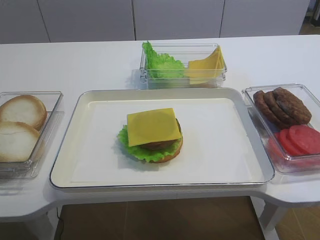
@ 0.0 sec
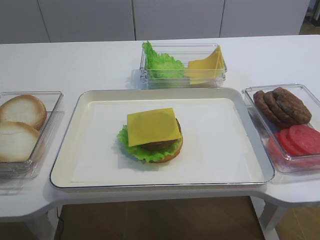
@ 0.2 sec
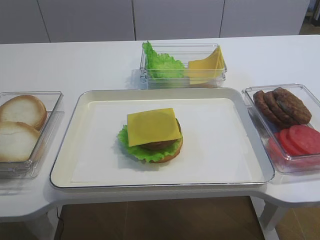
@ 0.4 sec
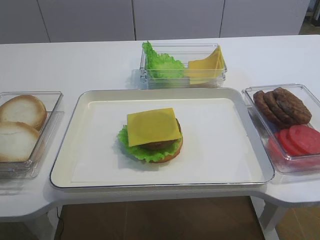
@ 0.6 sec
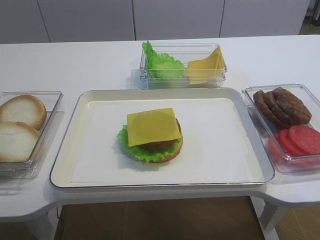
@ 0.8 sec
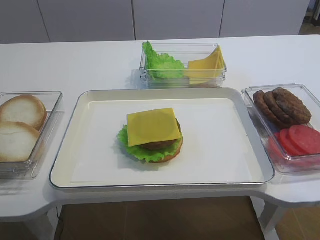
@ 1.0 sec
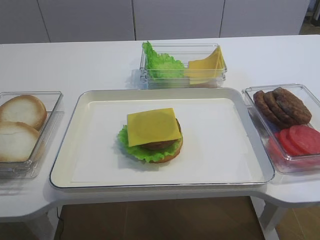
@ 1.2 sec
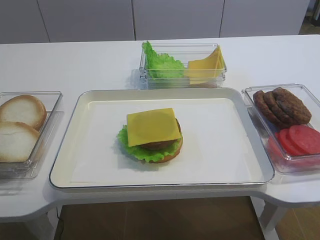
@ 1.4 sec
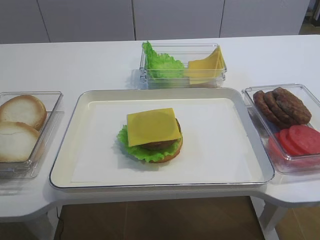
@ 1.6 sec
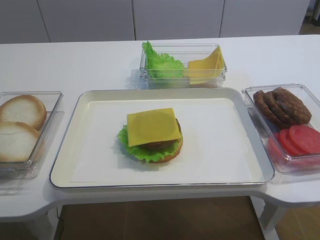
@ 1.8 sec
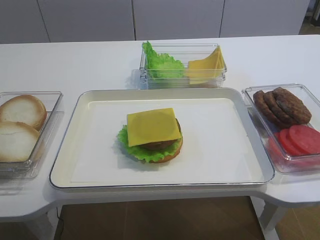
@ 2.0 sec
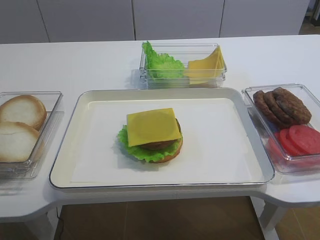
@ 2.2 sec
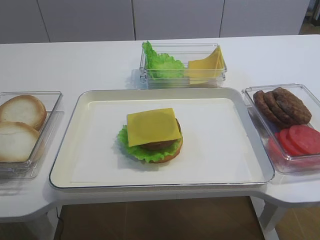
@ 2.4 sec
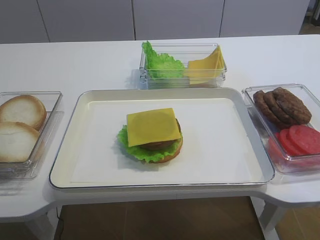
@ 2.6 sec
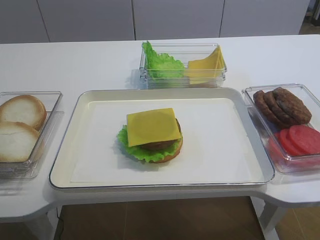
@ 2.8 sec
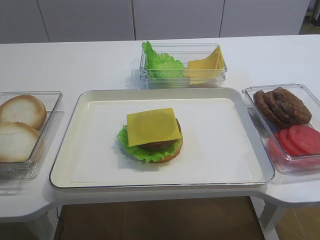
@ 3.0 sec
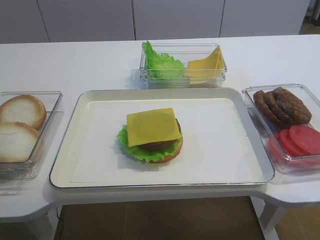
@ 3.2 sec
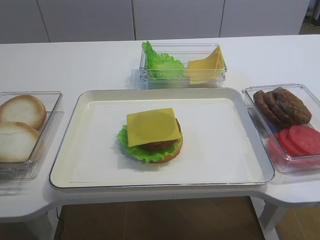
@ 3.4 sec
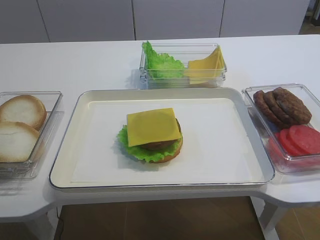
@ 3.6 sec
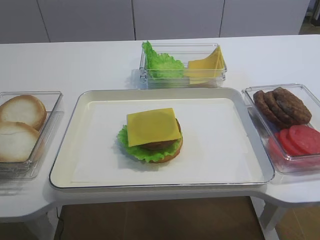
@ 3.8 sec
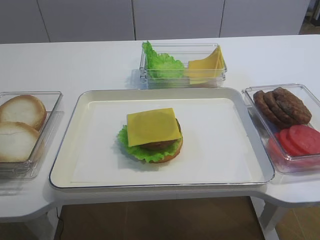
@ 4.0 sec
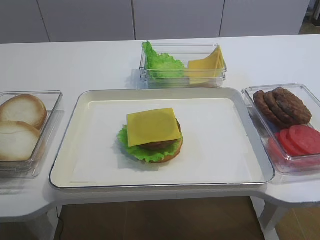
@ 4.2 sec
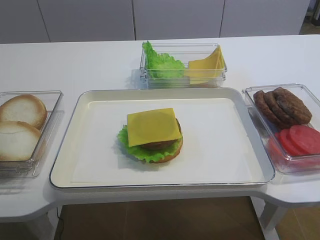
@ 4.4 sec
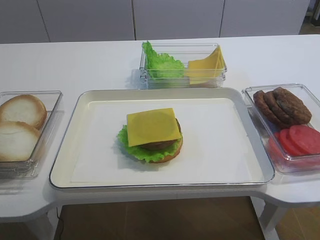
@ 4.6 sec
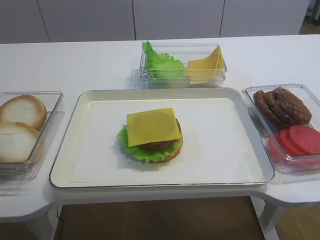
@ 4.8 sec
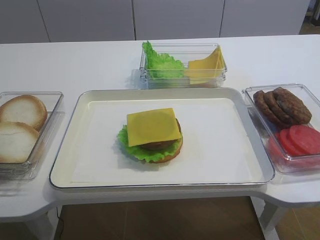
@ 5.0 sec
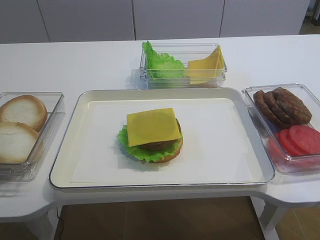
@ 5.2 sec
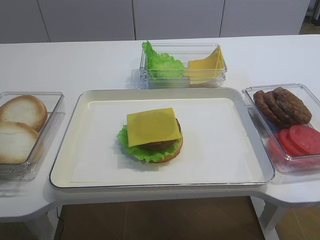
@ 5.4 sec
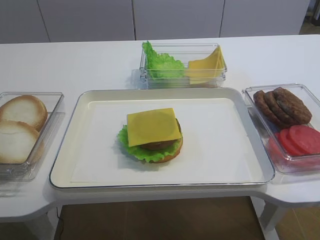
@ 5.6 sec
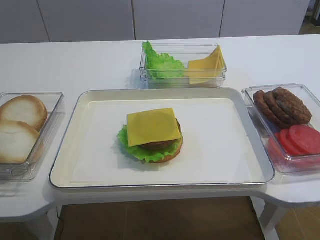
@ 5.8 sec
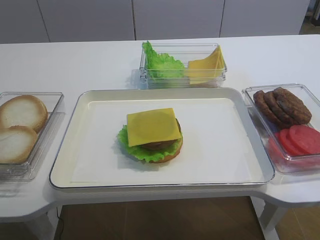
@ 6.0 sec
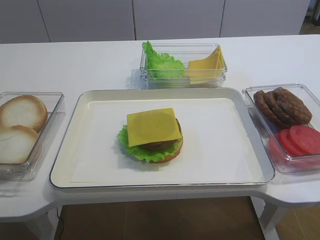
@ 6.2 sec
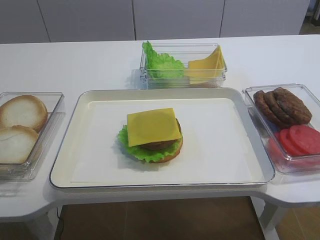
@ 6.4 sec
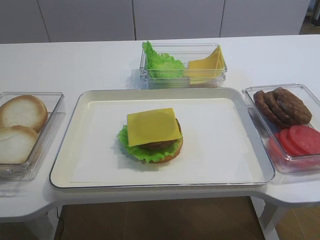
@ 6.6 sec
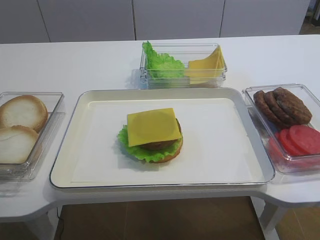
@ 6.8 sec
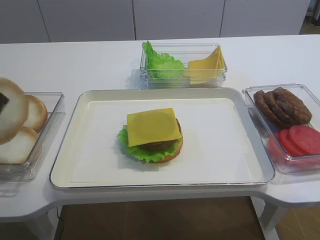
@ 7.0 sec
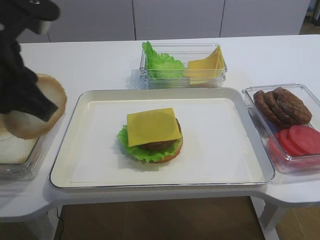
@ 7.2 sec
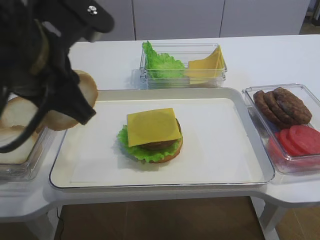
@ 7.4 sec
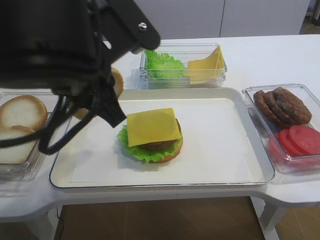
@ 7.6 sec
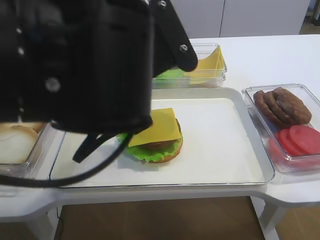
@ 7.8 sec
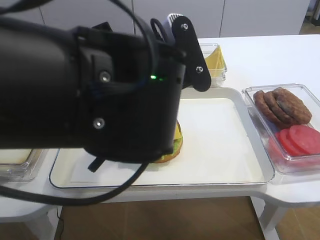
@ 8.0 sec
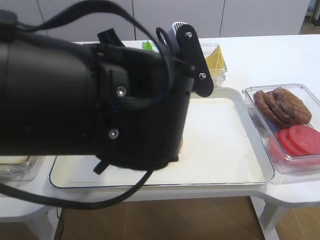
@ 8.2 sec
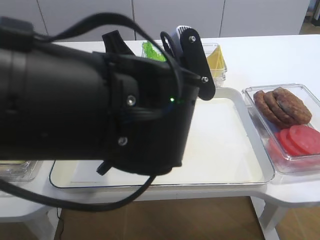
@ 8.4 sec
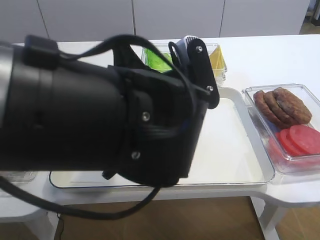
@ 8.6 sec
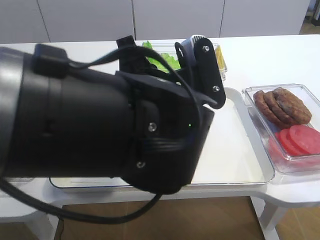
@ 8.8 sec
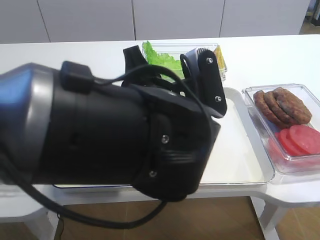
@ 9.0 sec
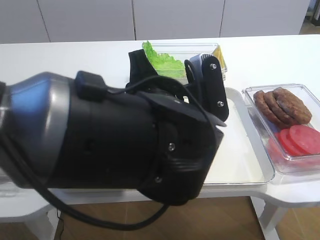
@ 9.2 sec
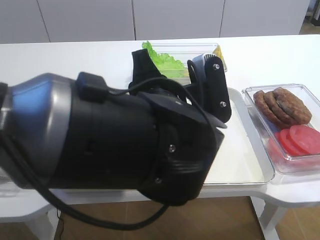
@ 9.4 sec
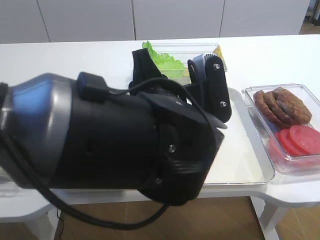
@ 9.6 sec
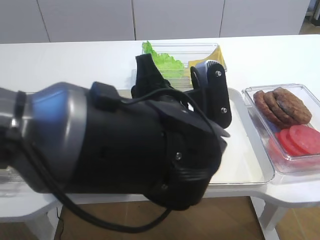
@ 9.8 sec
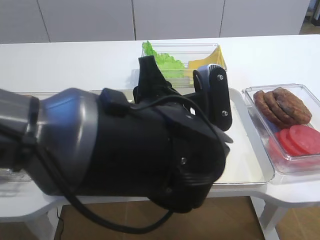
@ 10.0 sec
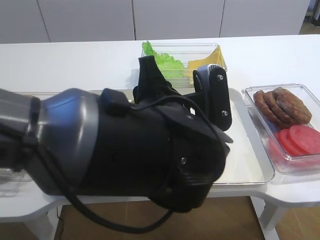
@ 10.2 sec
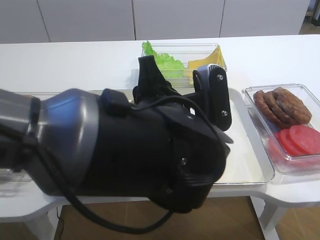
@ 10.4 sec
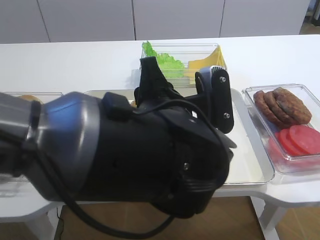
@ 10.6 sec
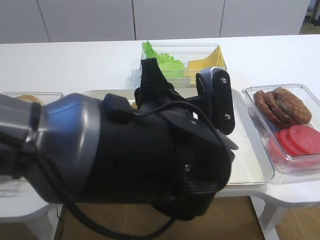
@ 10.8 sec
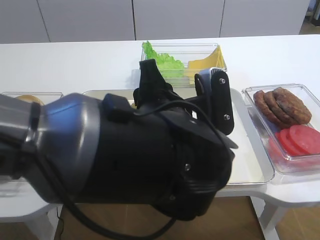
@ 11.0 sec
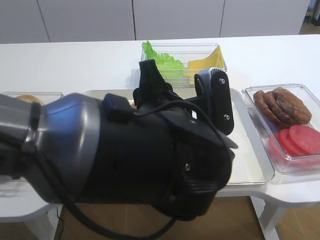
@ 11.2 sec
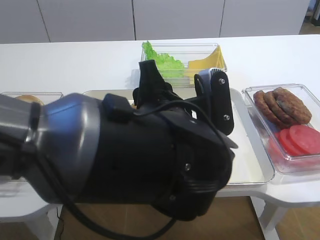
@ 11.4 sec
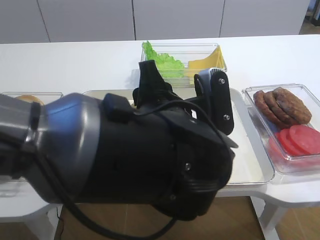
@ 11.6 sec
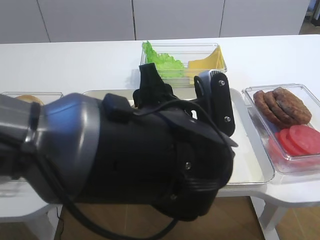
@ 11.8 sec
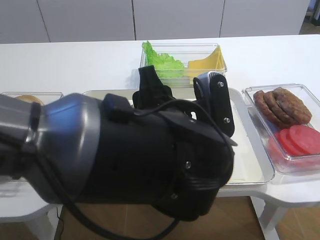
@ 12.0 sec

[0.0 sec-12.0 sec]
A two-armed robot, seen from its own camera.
Step, 0.0 sec to 7.0 sec: Pick up the hamburger lid with the left gripper.
4.4 sec to 6.0 sec: The left gripper changes place by about 5 cm.
6.0 sec to 7.6 sec: The left gripper is displaced to the right by some 25 cm.
7.6 sec to 9.0 sec: The left gripper is displaced to the right and downward by approximately 10 cm.
10.4 sec to 12.0 sec: The two grippers keep their place.

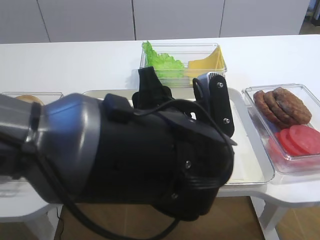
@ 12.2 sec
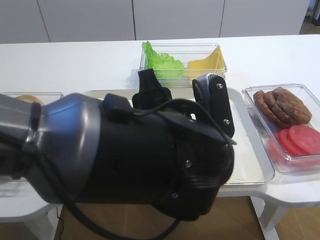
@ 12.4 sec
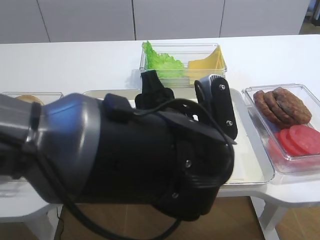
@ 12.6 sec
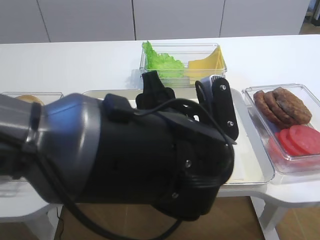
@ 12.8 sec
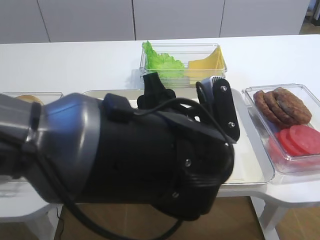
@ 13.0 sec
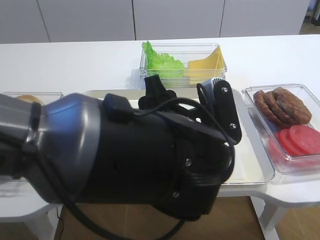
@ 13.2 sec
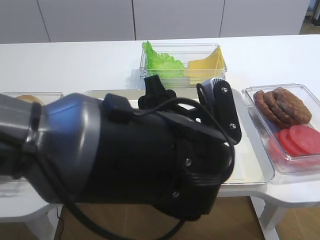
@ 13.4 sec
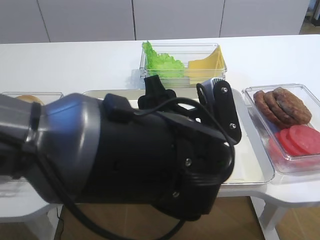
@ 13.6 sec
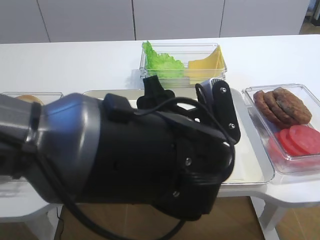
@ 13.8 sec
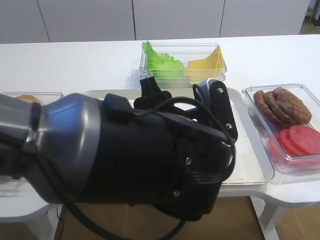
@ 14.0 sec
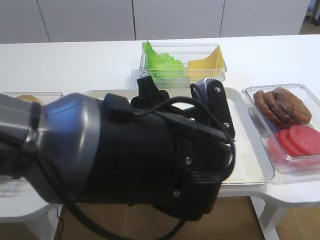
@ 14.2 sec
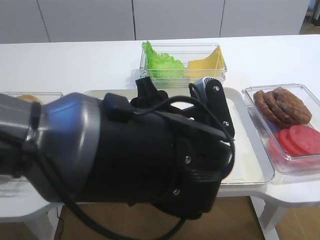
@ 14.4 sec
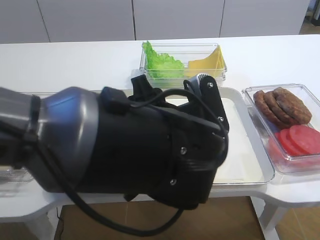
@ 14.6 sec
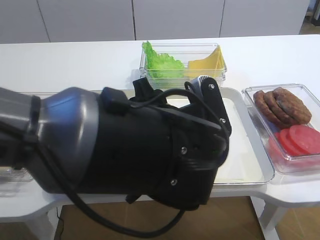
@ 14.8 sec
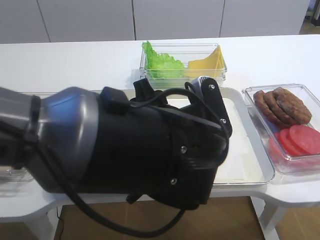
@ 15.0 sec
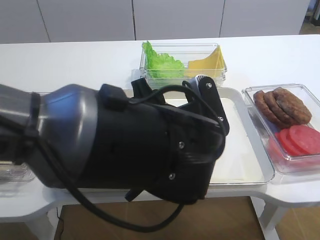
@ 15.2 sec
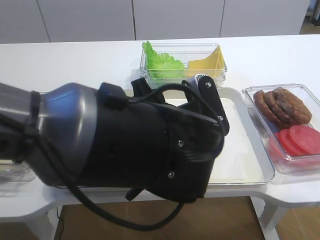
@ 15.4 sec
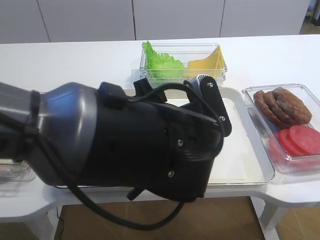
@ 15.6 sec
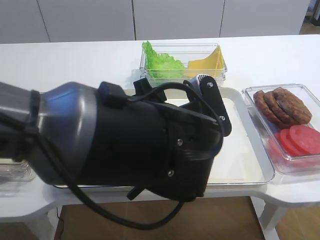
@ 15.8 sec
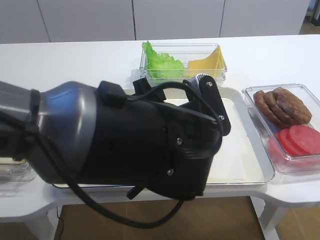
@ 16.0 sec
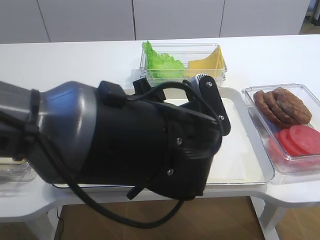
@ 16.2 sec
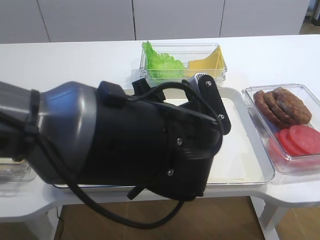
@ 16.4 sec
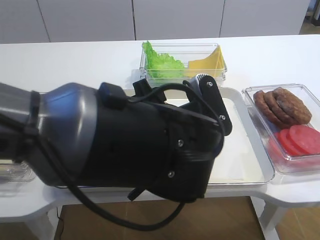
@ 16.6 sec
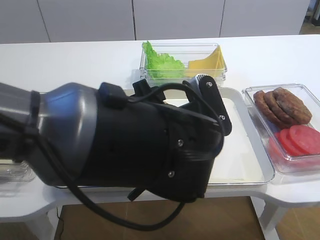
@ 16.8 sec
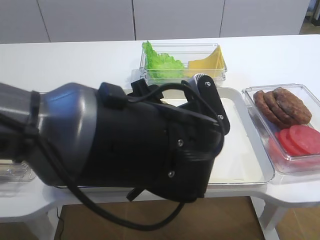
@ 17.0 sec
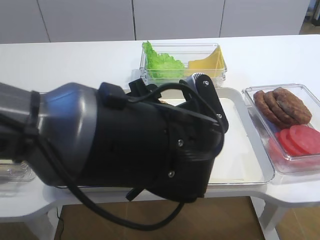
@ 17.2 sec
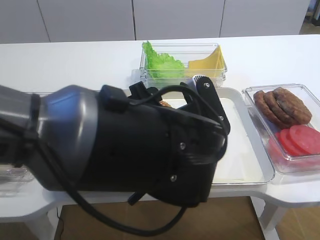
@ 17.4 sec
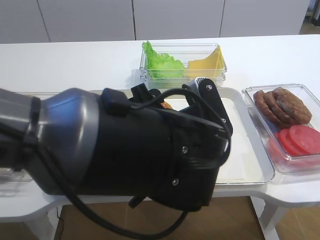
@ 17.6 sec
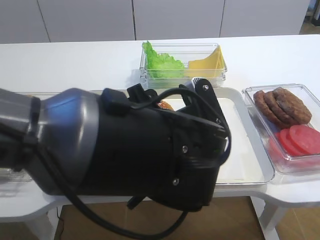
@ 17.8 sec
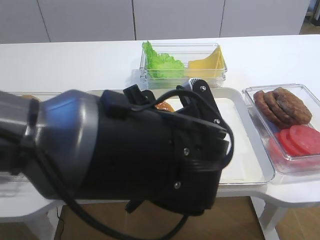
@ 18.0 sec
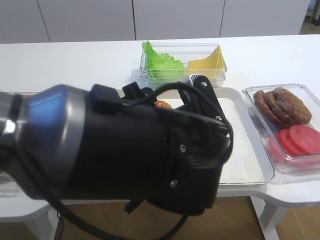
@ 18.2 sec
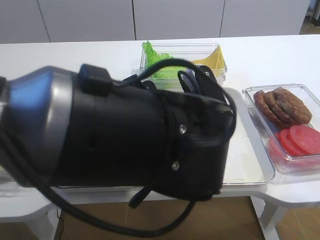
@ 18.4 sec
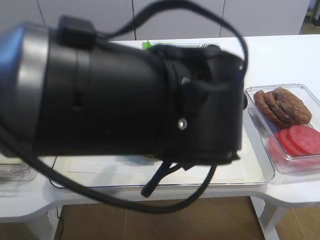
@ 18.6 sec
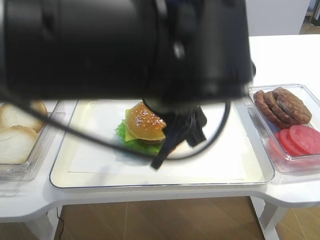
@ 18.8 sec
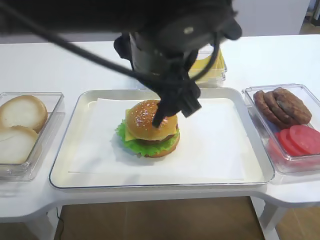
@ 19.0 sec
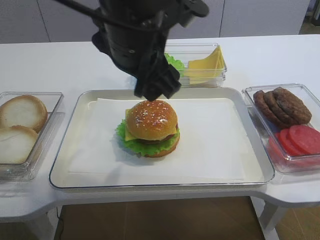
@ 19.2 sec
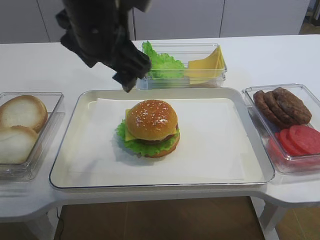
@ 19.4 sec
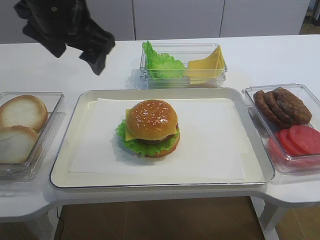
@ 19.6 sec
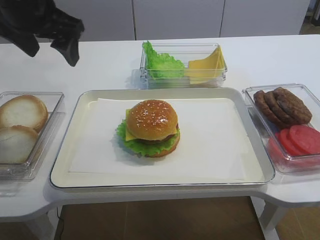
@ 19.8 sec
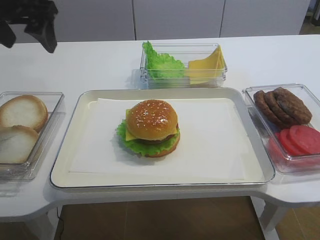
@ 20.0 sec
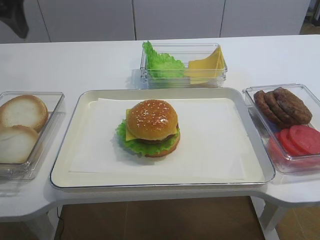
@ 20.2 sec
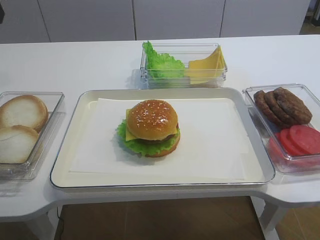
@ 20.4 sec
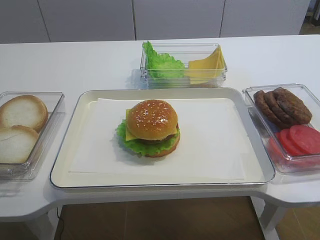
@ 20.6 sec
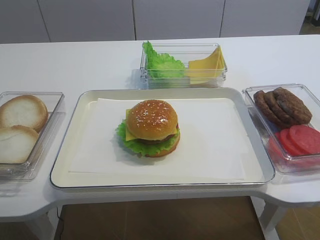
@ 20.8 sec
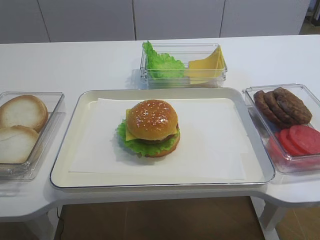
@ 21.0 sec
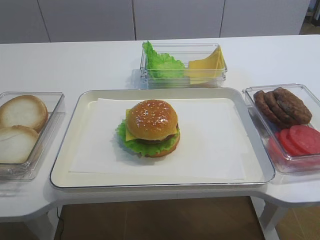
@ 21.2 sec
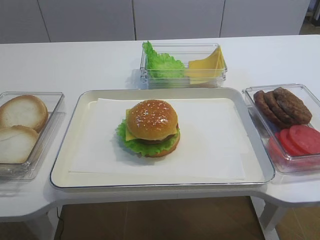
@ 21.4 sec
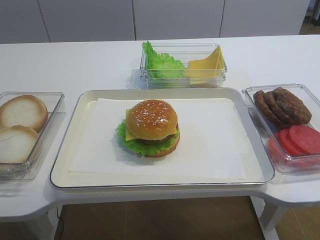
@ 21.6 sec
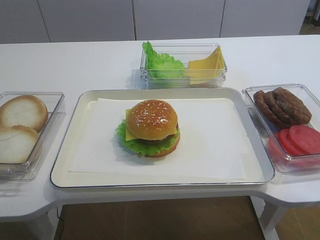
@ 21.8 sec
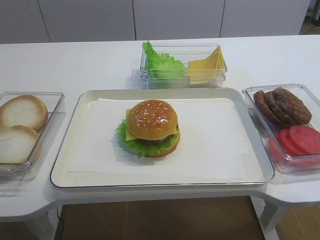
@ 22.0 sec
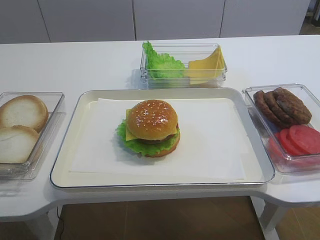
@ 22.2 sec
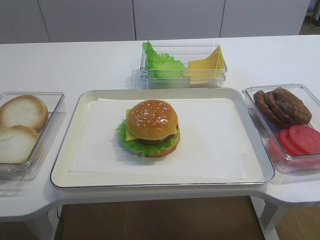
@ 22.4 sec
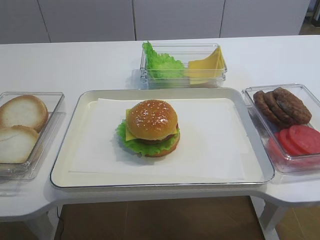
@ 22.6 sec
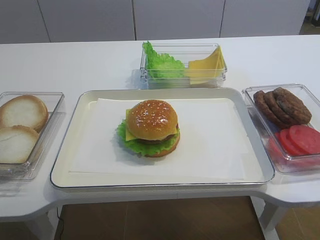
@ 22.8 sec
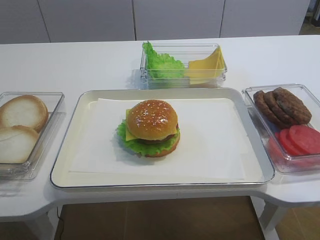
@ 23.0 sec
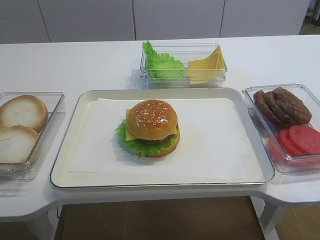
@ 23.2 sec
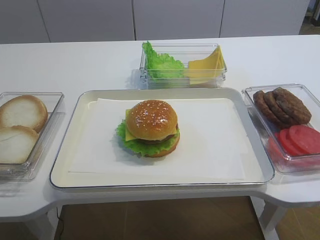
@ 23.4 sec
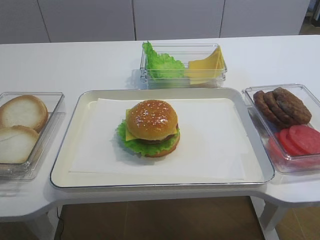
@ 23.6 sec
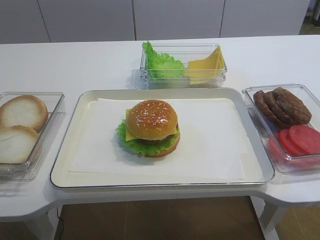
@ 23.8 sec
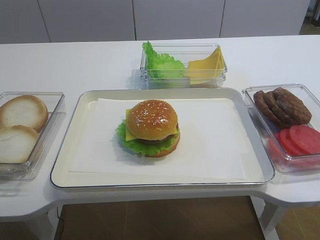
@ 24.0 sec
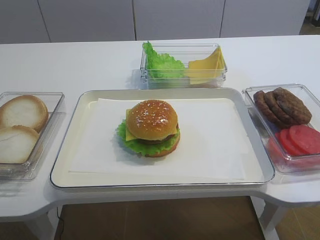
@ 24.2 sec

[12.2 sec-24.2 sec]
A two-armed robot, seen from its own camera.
Step, 12.2 sec to 19.0 sec: Place the hamburger lid on the cheese slice with the left gripper.
12.2 sec to 15.2 sec: The grippers make only small movements.
15.2 sec to 16.6 sec: Both grippers stay put.
16.6 sec to 18.2 sec: There are only small adjustments of the grippers.
18.2 sec to 19.8 sec: The left gripper goes about 25 cm to the left, forward and upward.
19.8 sec to 21.2 sec: The left gripper travels backward and to the left by some 20 cm.
